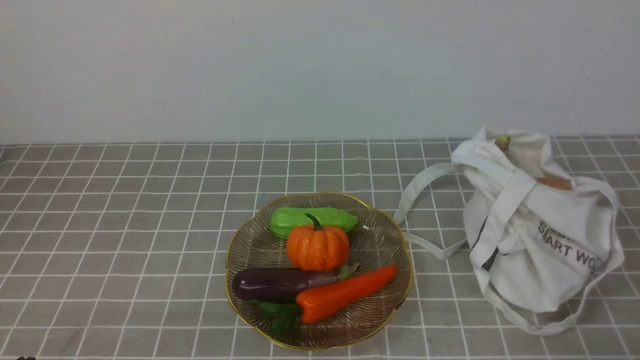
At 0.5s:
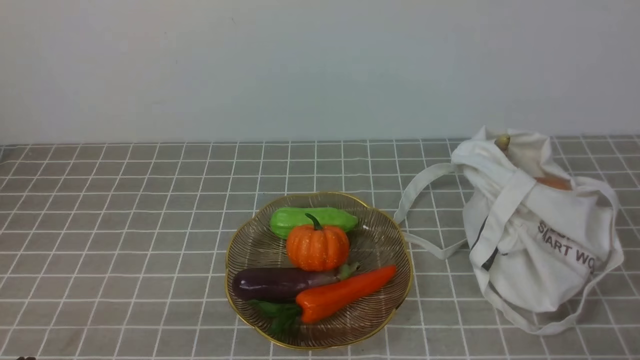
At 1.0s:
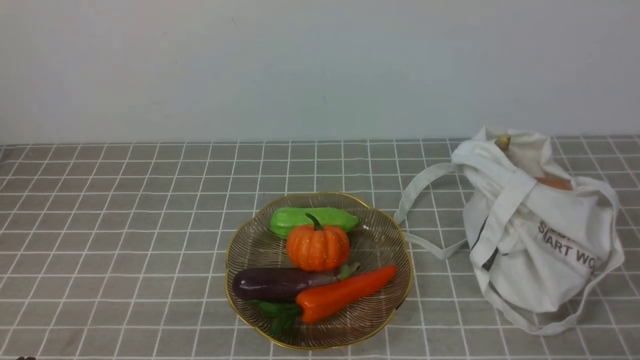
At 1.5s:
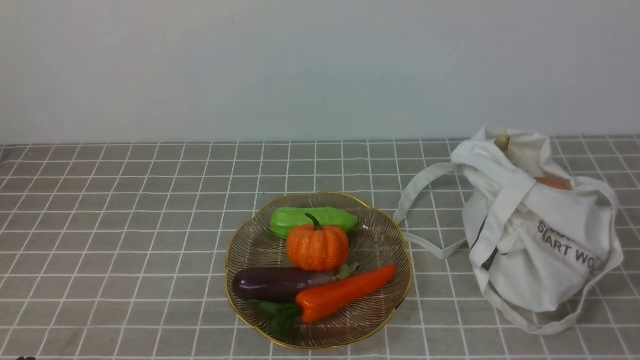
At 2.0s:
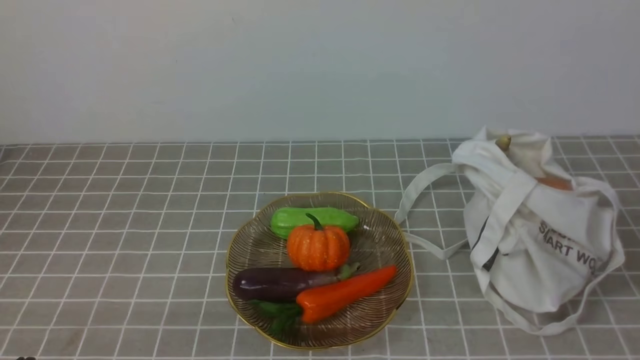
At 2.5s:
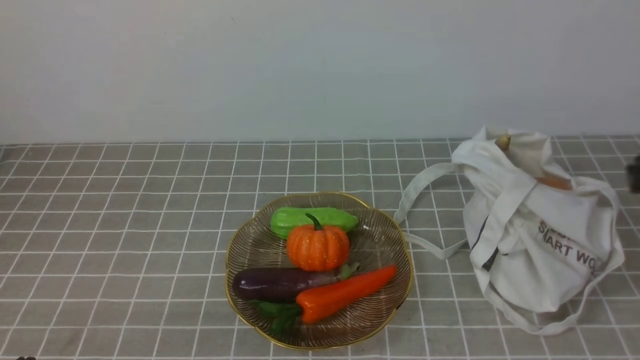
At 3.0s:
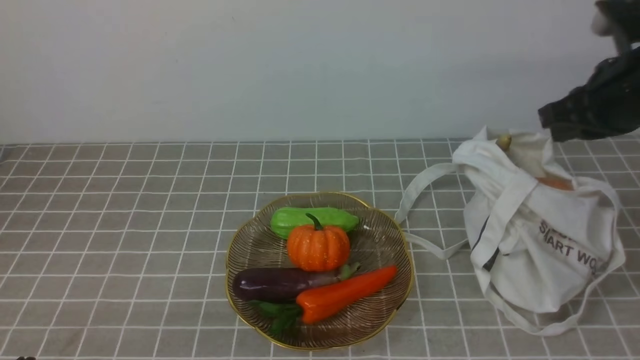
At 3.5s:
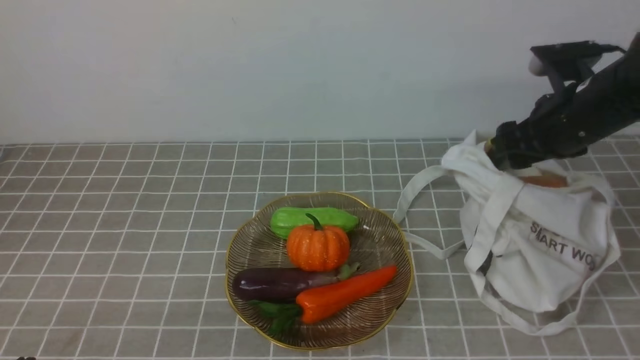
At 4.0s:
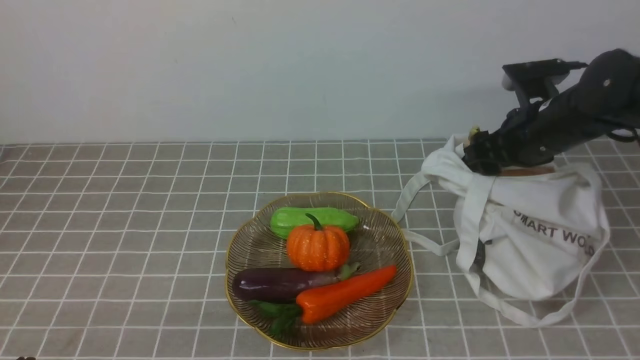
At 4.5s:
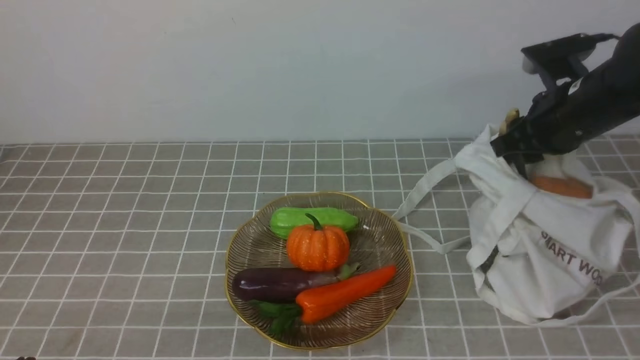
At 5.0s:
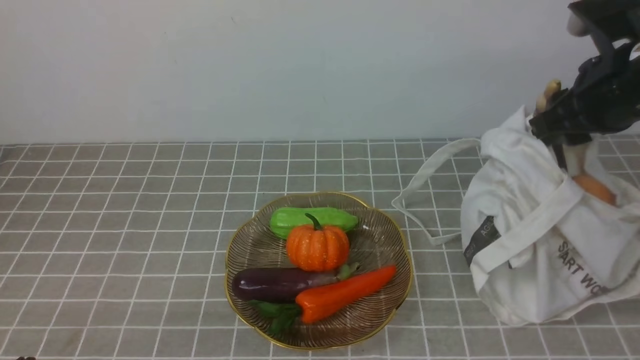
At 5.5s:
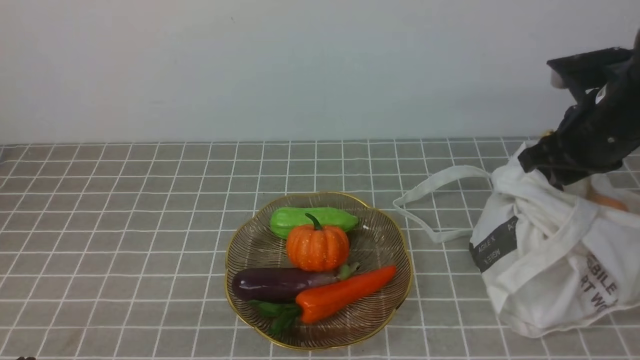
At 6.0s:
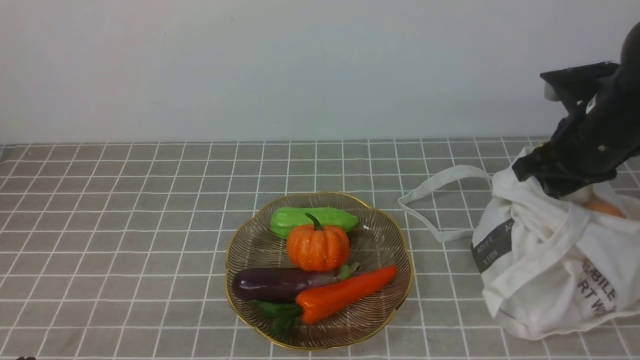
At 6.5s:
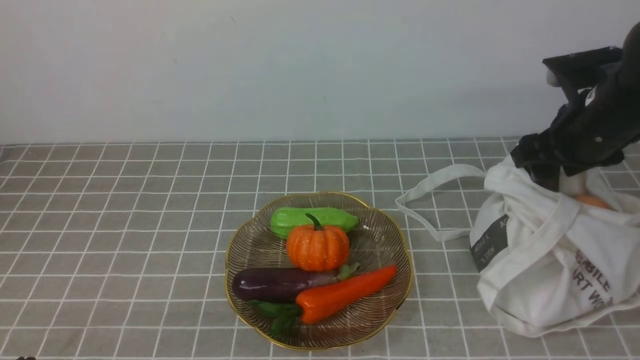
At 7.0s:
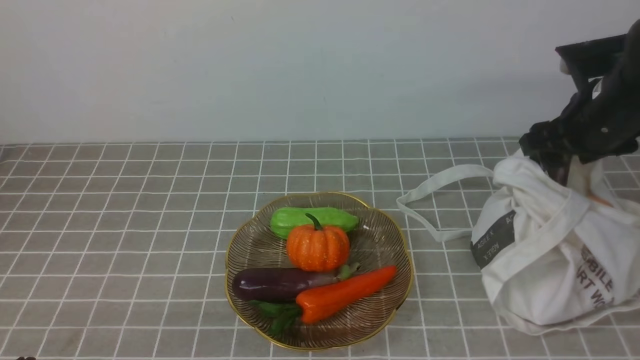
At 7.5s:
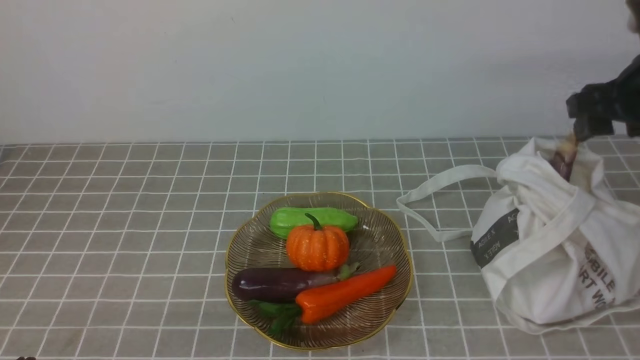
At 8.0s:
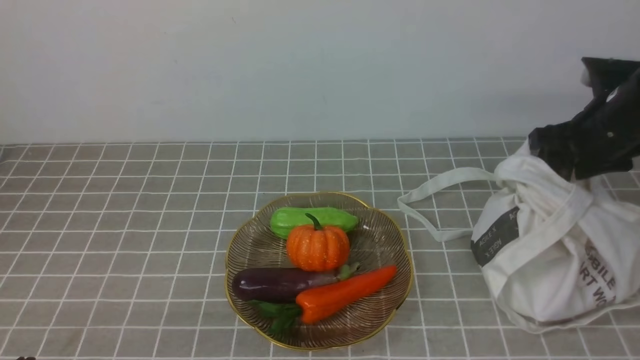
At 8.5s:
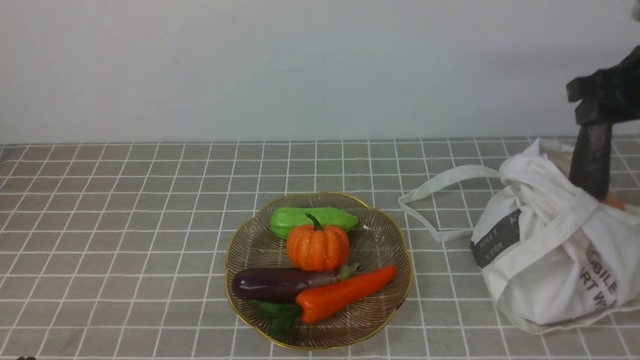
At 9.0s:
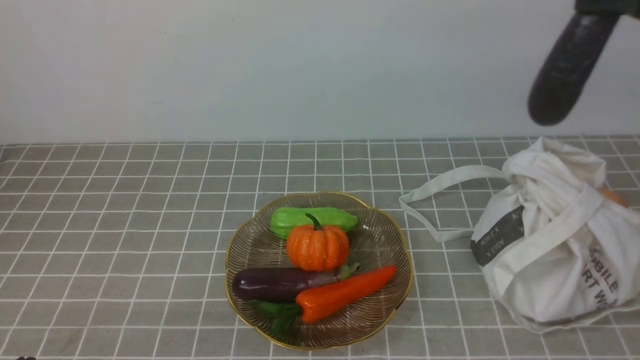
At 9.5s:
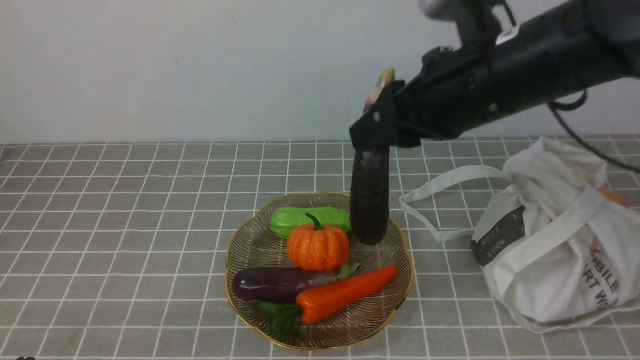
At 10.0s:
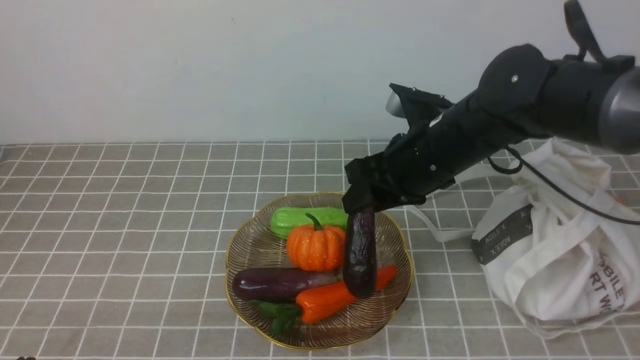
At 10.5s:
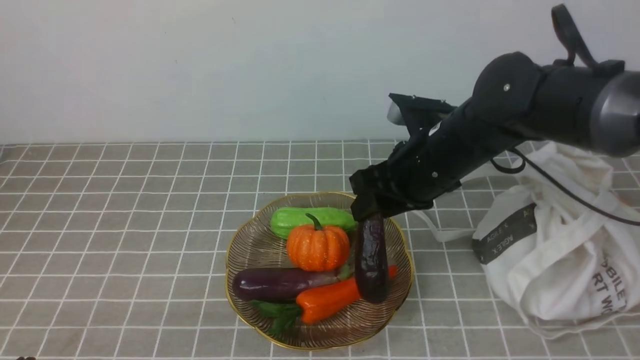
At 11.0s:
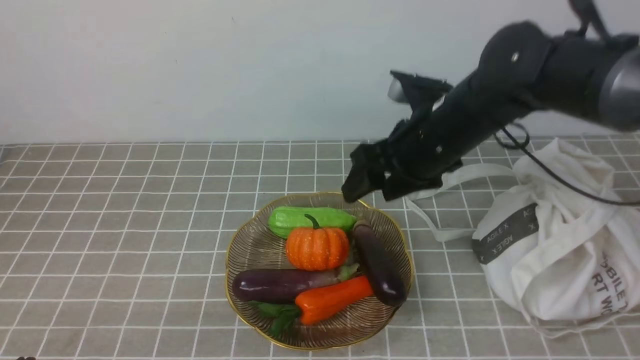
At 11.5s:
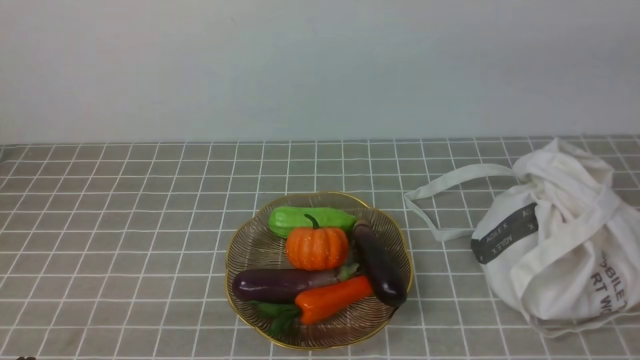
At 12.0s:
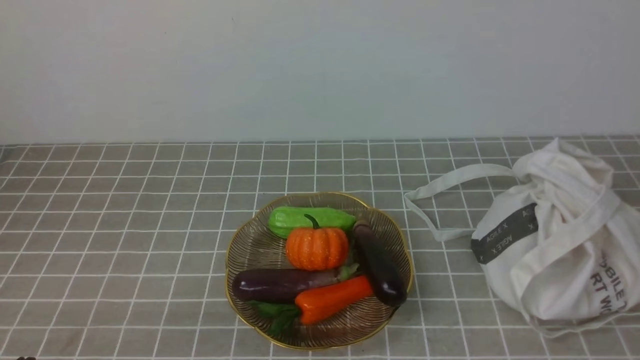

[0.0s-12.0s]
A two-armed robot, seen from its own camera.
Task of the whole recording: take vegetables from bag on grey coffee tablecloth place on plate.
Step, 0.0s to 8.0s: Grasp the eggplant with right gripper.
Step, 8.5s to 11.0s: Place the eggplant on the plate with right gripper.
2.0s to 4.0s: The right gripper goes approximately 35 cm forward, and opens its fingers.
4.0s to 6.0s: The right gripper shifts approximately 5 cm backward.
6.0s to 8.0s: The right gripper shifts by about 5 cm.
8.0s to 10.0s: The right gripper is displaced to the left by some 20 cm.
10.0s to 12.0s: The right gripper moves backward, to the right and upward, approximately 40 cm, and closes.

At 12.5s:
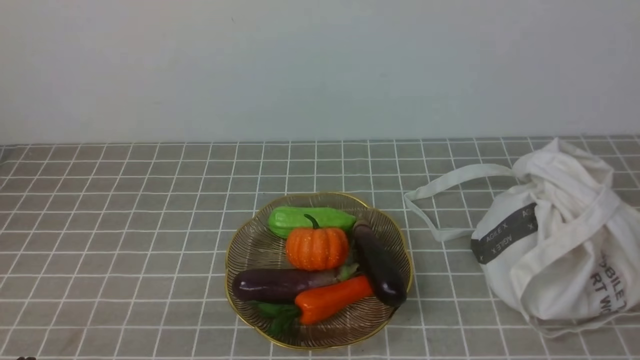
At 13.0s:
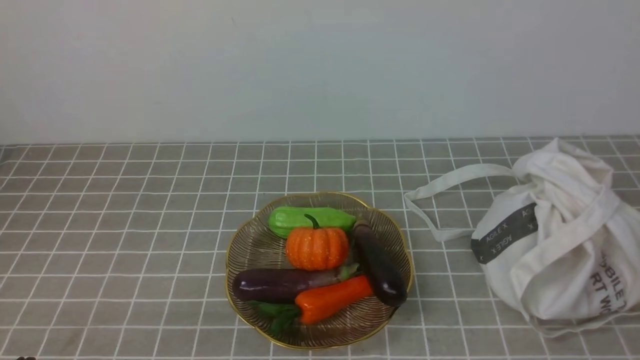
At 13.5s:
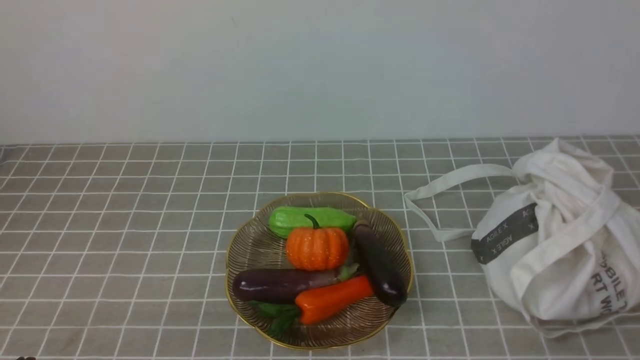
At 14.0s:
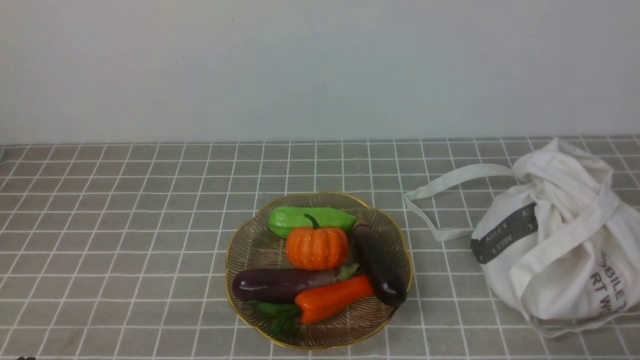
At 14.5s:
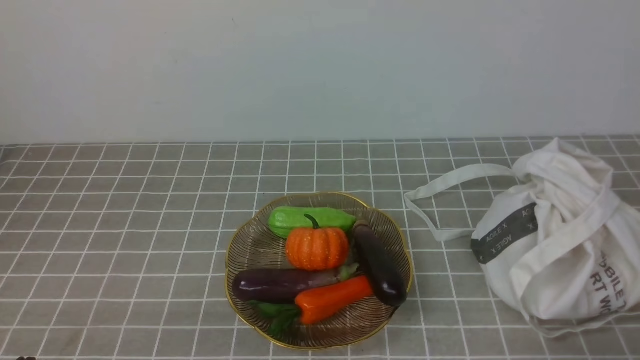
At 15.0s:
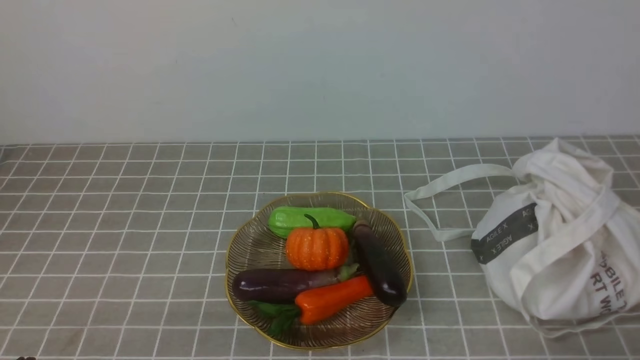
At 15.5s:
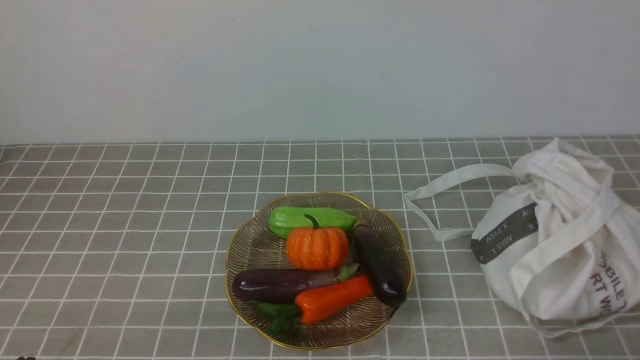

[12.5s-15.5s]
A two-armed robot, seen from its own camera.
Task of the whole recording: take vegetables from bag on grey coffee tablecloth place on plate.
14.0s to 15.5s: Neither gripper changes place.

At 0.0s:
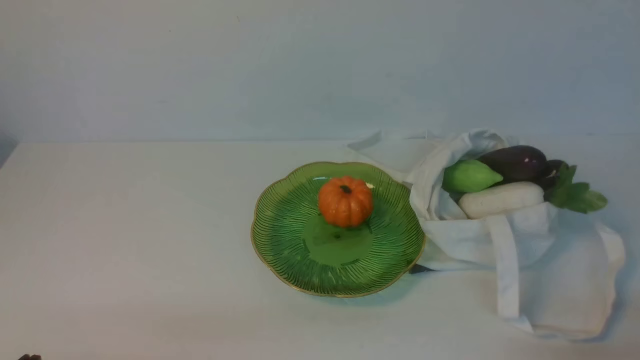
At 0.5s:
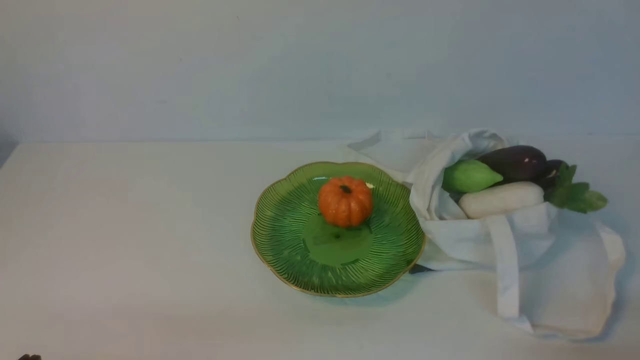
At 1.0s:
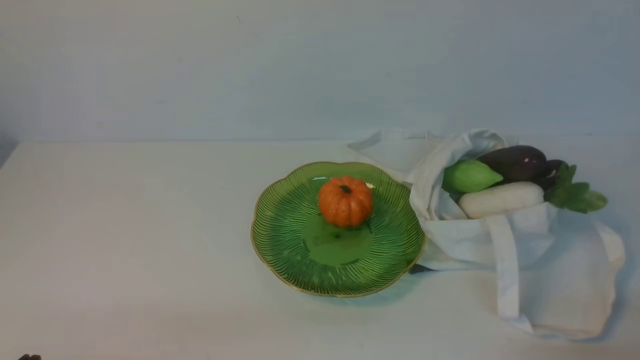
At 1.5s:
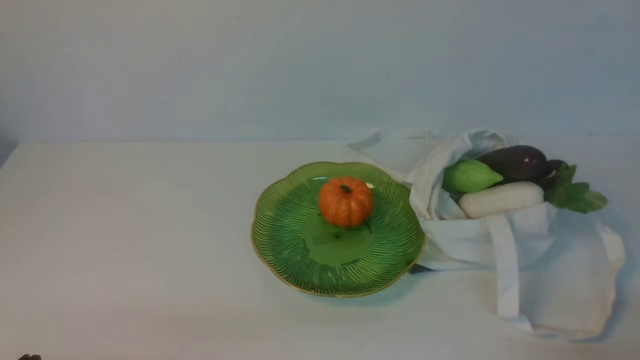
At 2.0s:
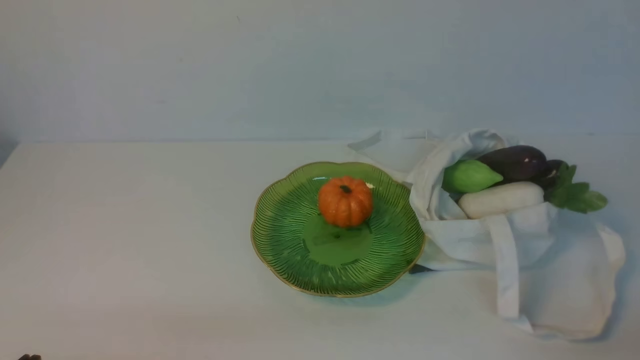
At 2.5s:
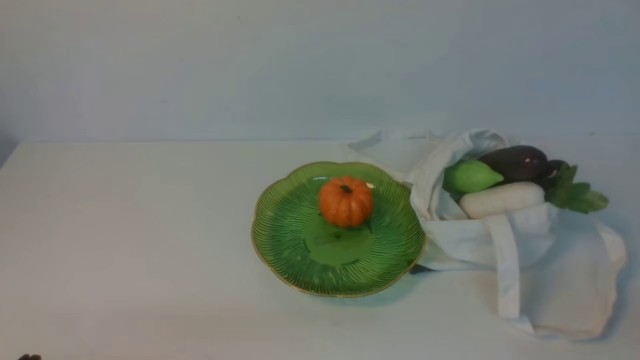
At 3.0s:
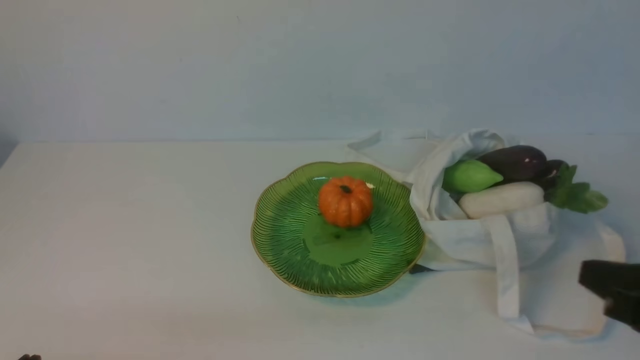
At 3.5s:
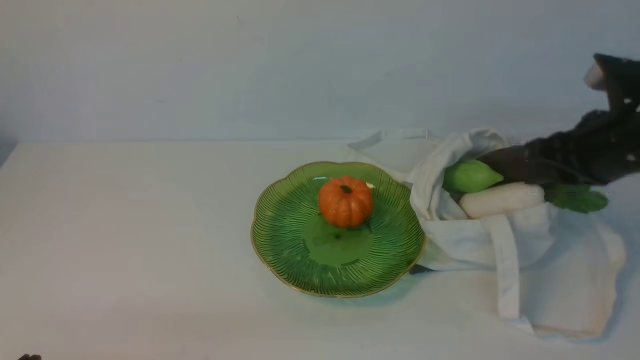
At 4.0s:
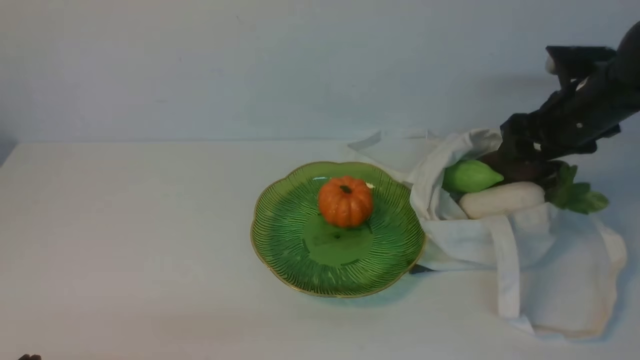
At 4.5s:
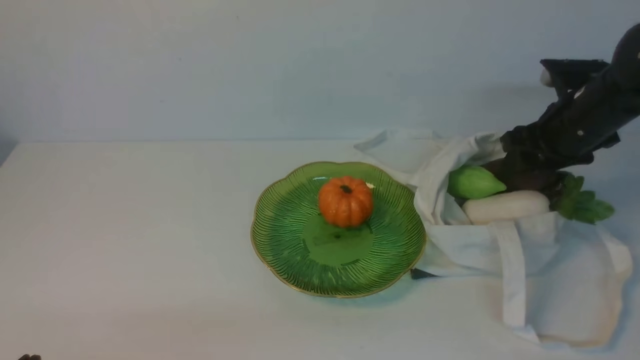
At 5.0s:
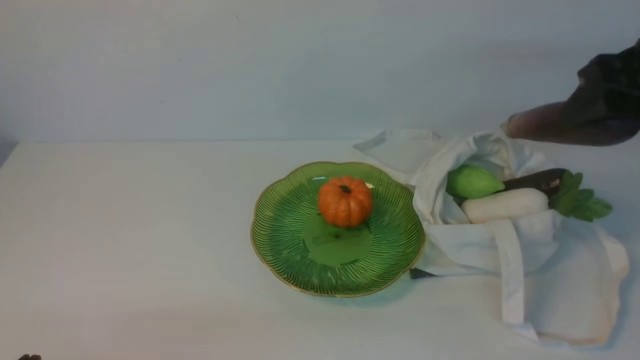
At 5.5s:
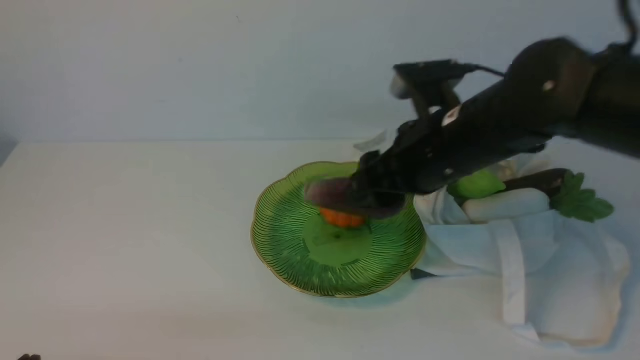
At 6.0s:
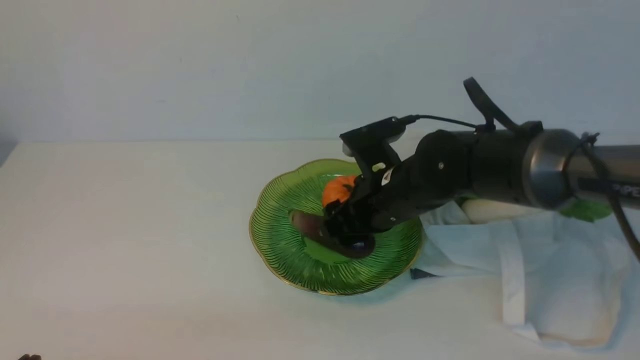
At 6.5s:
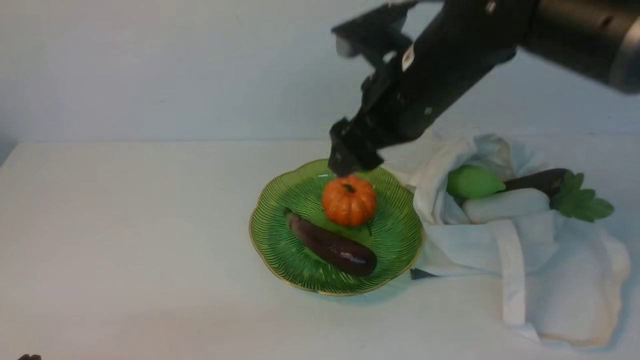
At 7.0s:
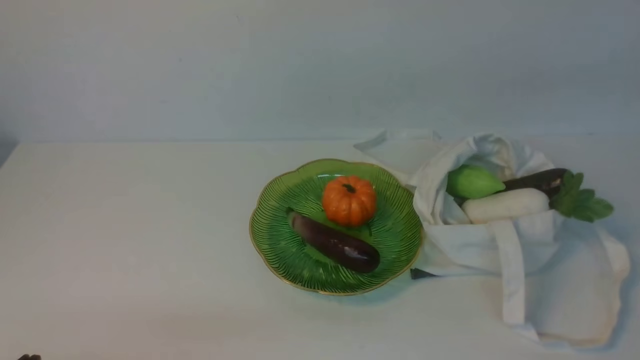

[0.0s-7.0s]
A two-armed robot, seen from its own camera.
Task of the whole recording: take vegetables from cloth bag on white table place on plate.
Step, 0.0s to 4.0s: Grasp the eggplant with right gripper.
Step, 4.5s to 6.0s: Place the eggplant on the plate with right gripper.
2.0s to 3.5s: The right gripper goes about 25 cm forward, and opens up.
3.5s to 5.0s: The right gripper goes roughly 10 cm upward, and opens its fingers.
5.0s to 7.0s: The right gripper travels backward and upward by some 20 cm, and closes its fingers.
